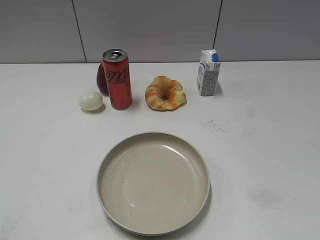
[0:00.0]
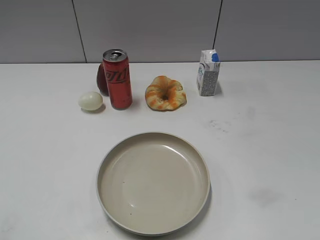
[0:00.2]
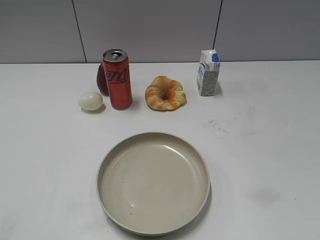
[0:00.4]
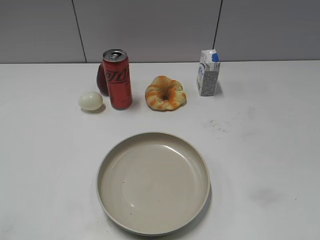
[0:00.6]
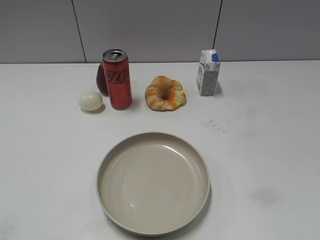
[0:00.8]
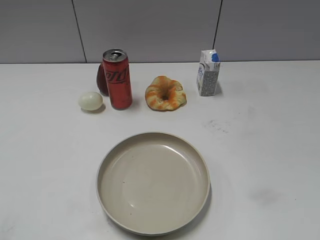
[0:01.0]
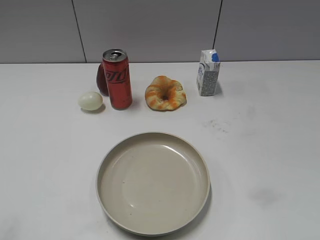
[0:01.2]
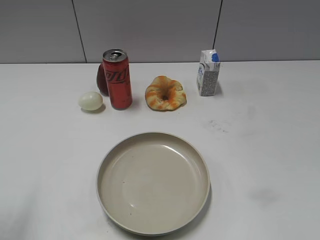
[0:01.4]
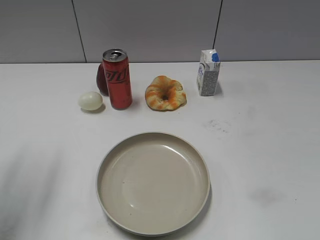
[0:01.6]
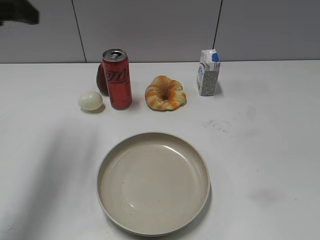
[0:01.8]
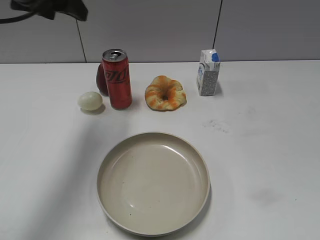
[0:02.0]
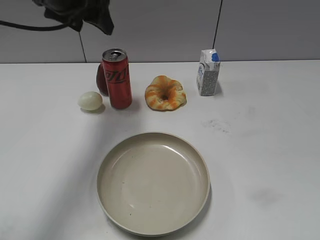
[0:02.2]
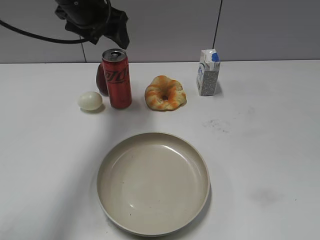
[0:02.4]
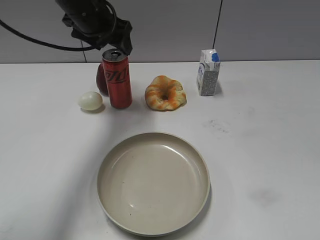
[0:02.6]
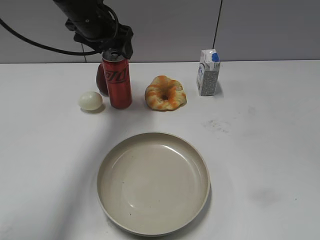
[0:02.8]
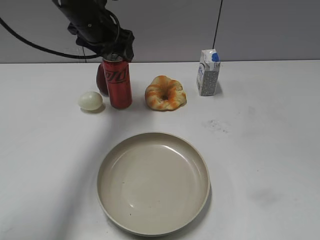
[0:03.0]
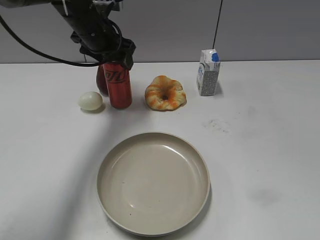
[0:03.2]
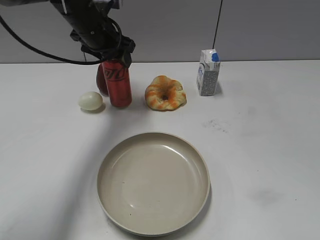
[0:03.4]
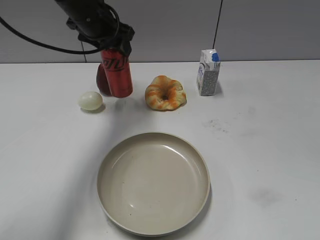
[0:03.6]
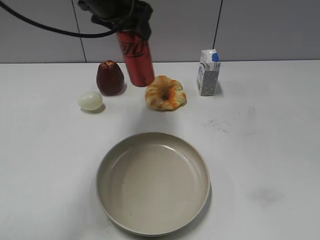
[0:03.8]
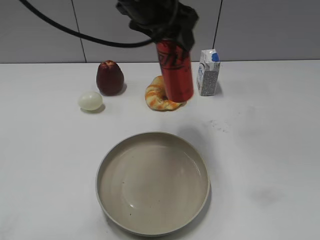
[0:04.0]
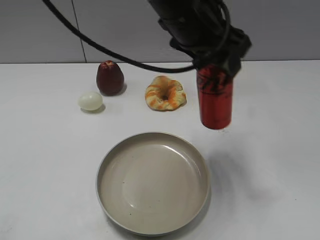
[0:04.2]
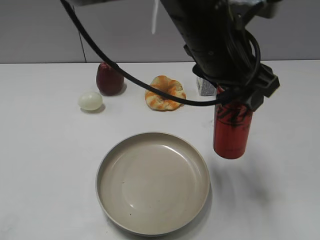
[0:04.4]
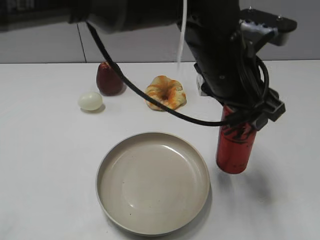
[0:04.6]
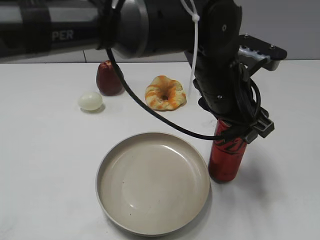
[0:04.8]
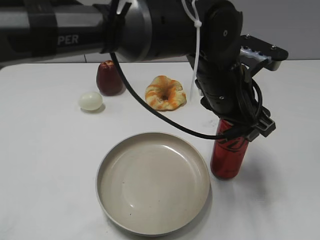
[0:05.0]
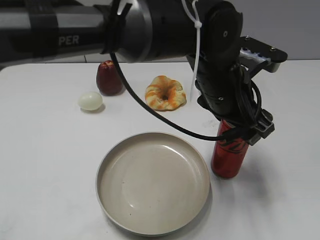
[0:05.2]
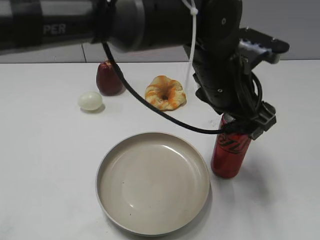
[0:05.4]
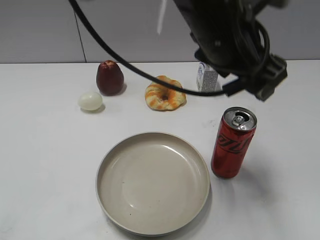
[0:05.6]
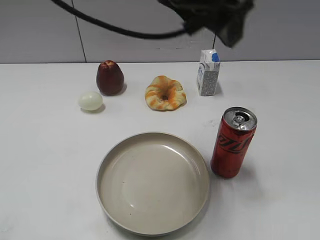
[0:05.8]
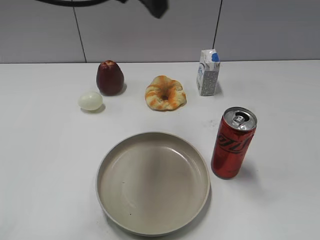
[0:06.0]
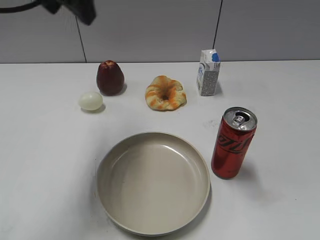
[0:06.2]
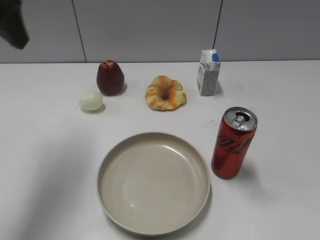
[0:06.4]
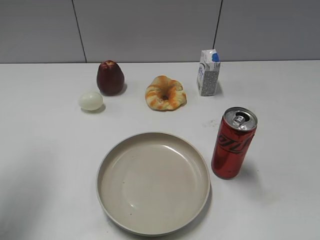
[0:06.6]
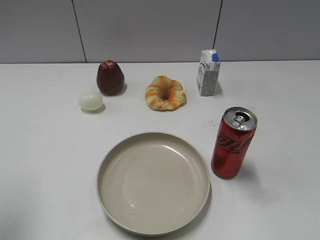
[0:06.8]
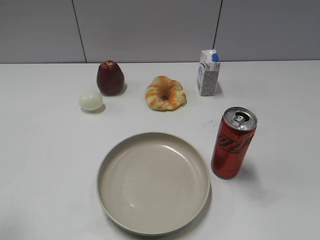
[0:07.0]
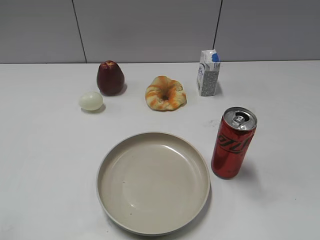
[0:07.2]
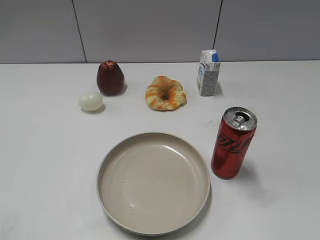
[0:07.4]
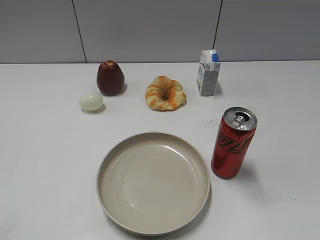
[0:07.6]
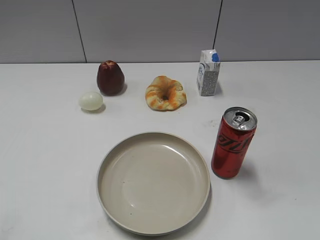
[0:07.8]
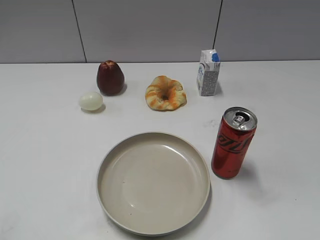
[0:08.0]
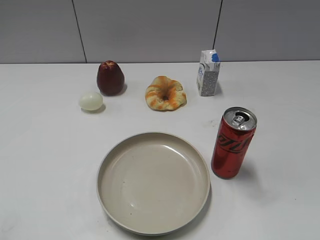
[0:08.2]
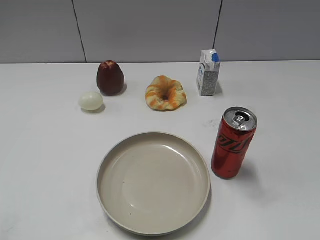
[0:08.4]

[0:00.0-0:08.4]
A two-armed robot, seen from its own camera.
Step, 0:01.2 to 0:03.4: Grasp the cola with left gripper.
Step, 0:03.6 to 0:05.4: Place the cola on the table with left gripper.
0:01.4 to 0:02.8: The left gripper travels forward and to the right by some 35 cm, and opens up.
0:02.8 to 0:04.2: The left gripper travels backward and to the right by roughly 20 cm, and closes its fingers.
0:04.2 to 0:05.6: The left gripper travels downward and back again, about 10 cm each way, and opens.
0:05.6 to 0:07.0: The left gripper goes some 35 cm to the left, and closes up.

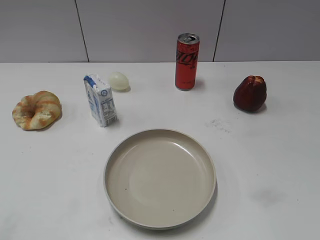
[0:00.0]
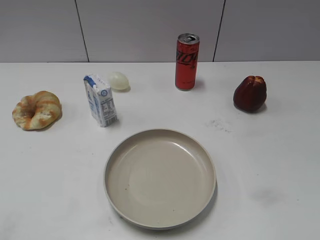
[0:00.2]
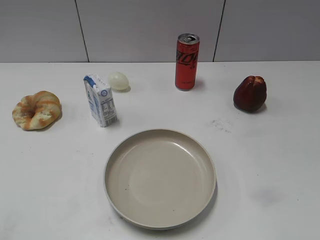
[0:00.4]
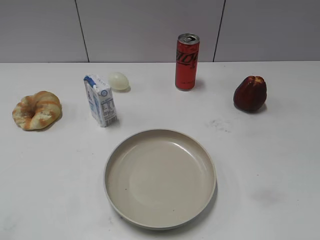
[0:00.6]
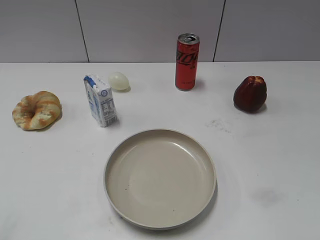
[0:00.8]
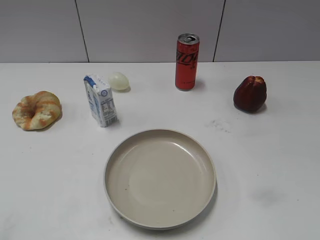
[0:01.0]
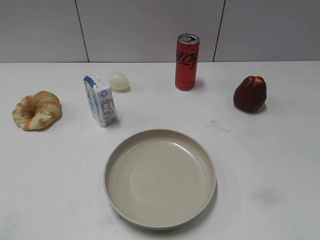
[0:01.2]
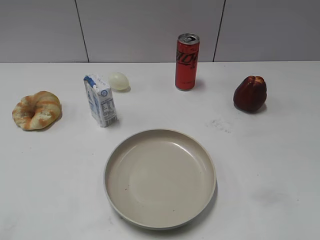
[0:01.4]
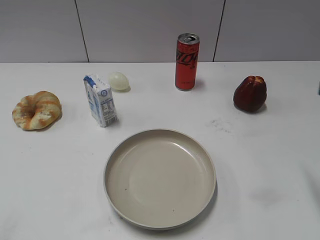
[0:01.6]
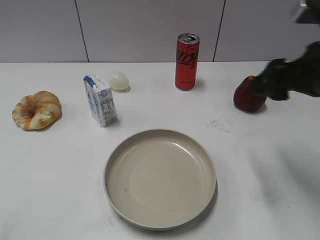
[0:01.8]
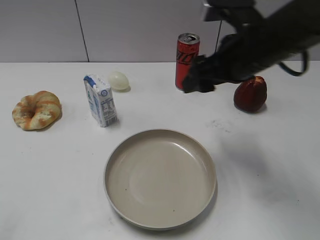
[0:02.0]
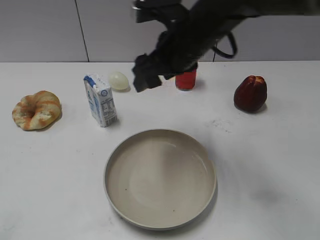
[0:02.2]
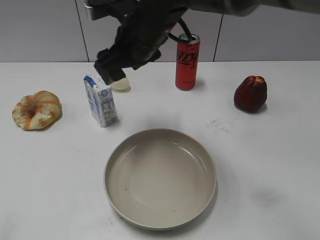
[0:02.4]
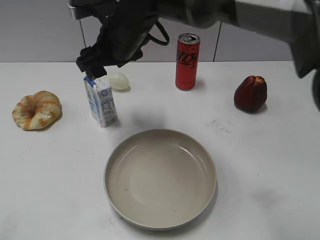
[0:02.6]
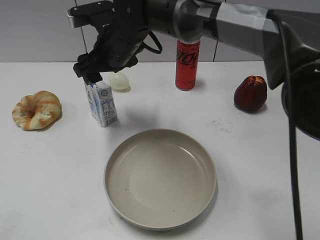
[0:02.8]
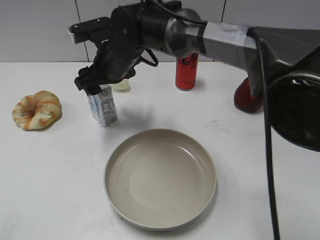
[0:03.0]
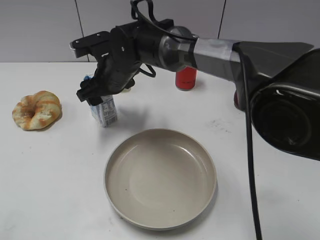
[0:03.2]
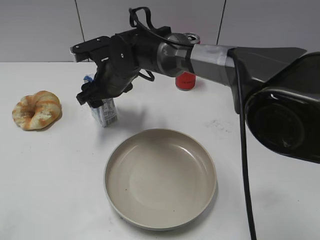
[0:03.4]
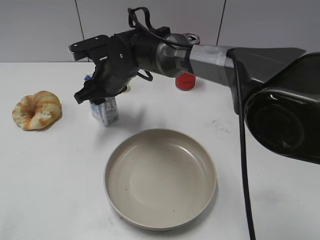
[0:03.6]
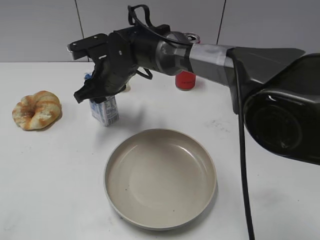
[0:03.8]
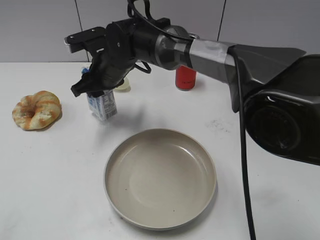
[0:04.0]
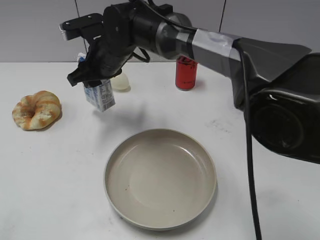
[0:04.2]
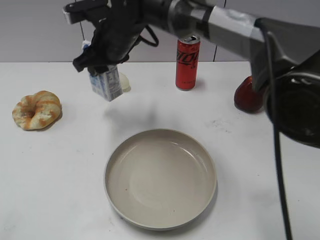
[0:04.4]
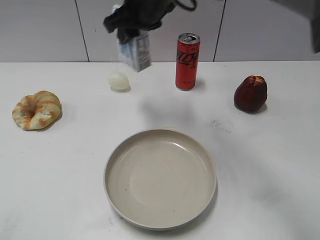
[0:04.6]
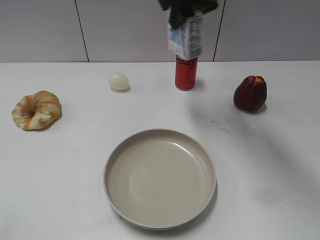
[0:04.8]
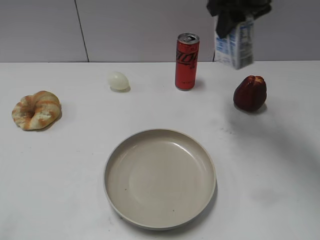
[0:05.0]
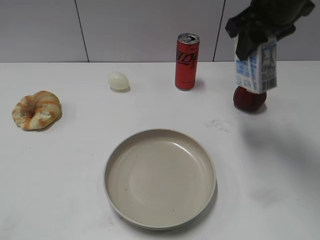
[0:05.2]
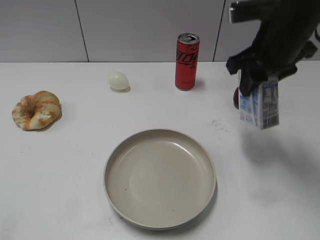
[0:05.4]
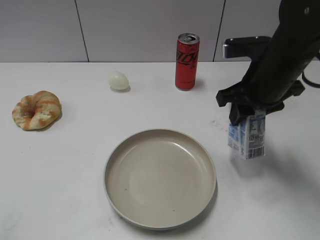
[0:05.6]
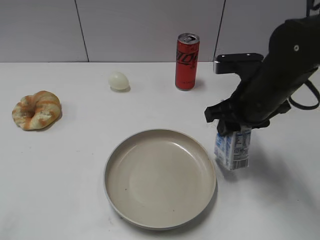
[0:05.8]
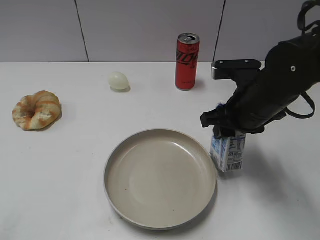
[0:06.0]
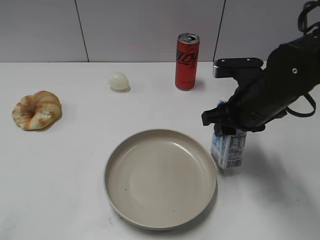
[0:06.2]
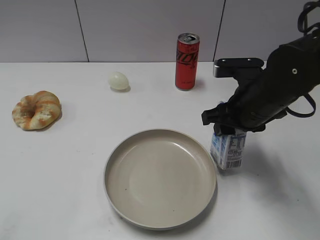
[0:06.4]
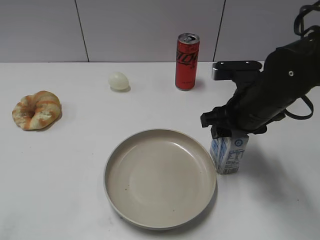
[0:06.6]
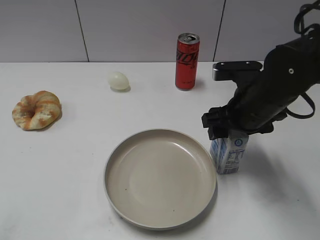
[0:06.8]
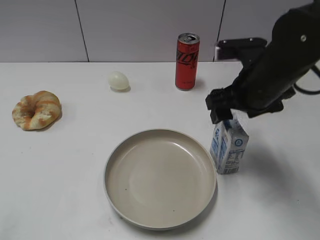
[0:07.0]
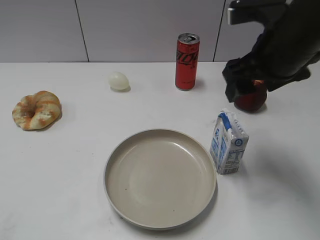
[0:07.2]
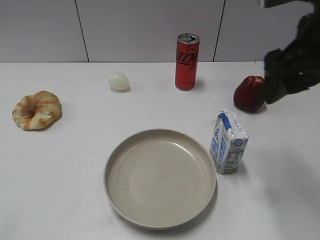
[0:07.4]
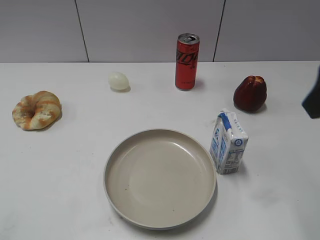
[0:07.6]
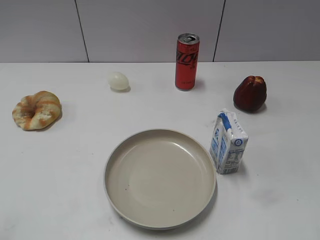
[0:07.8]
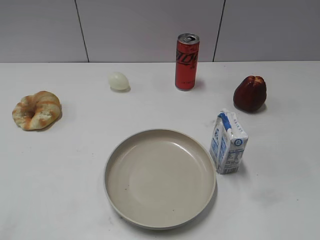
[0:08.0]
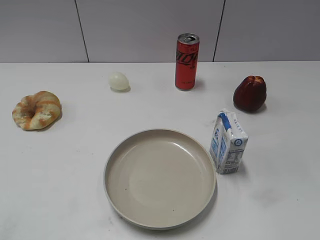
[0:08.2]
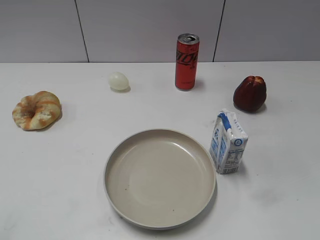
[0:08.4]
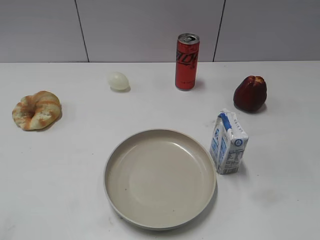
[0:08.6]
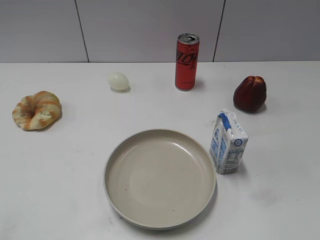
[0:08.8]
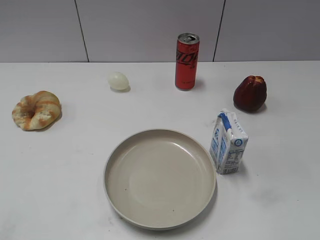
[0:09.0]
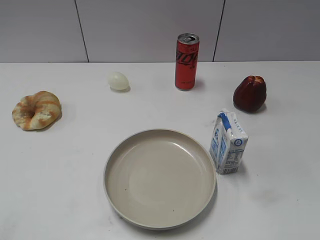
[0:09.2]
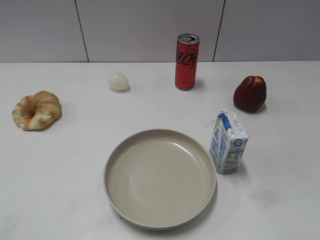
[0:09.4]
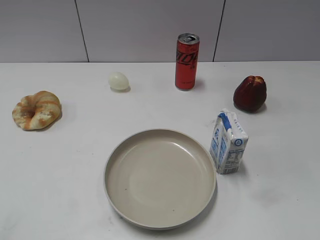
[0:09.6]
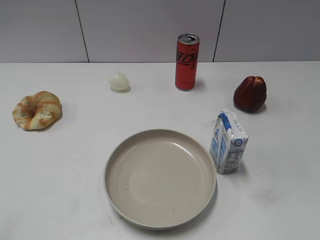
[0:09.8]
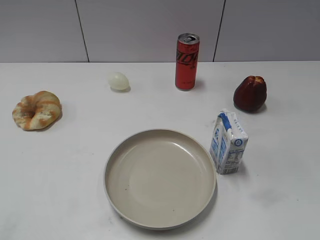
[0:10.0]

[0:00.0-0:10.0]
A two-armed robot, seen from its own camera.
Step, 0:00.8 to 0:03.6: Grasp the milk with right gripper.
Step, 0:03.8 to 0:06.8: Place the milk on the table with right gripper.
0:01.4 to 0:02.8: The right gripper moves to the left and forward, approximately 50 cm.
0:02.8 to 0:04.2: The right gripper closes up.
0:04.2 to 0:05.8: The right gripper goes about 25 cm to the right and backward.
0:05.8 to 0:07.2: The right gripper moves upward, approximately 10 cm, and opens.
0:07.2 to 0:08.6: The right gripper heads backward and to the right, covering roughly 30 cm.

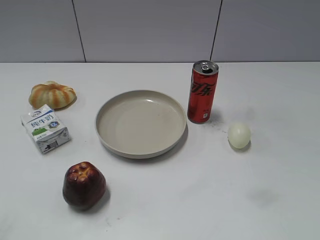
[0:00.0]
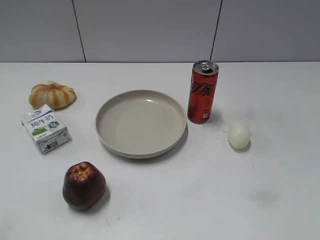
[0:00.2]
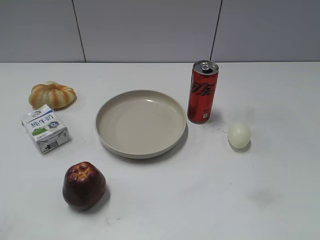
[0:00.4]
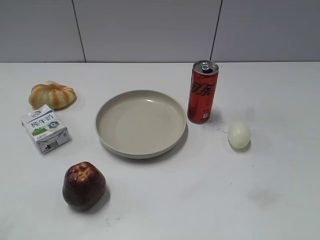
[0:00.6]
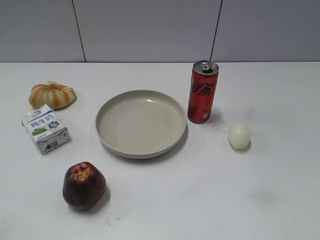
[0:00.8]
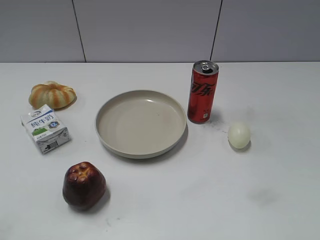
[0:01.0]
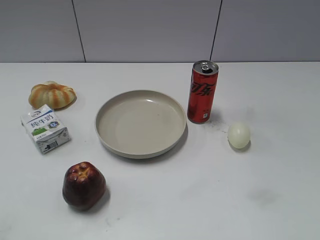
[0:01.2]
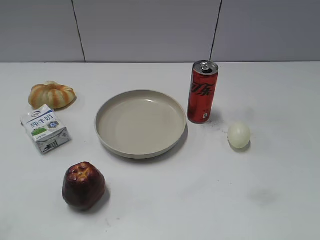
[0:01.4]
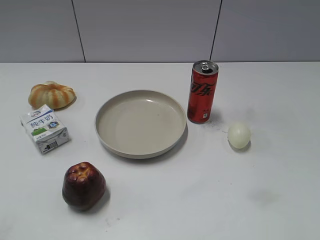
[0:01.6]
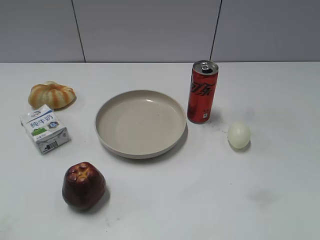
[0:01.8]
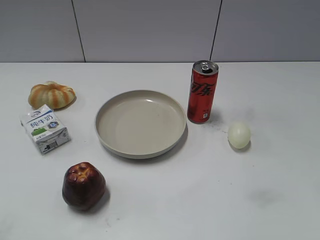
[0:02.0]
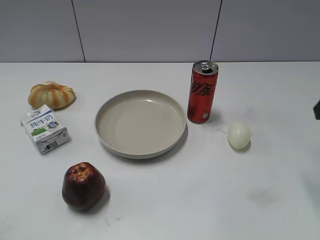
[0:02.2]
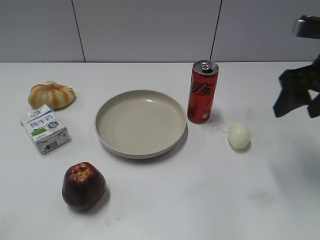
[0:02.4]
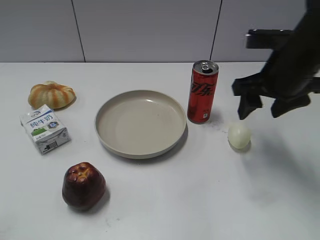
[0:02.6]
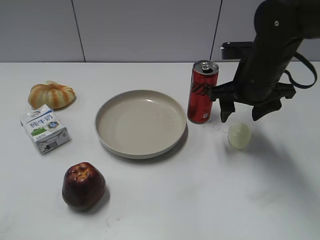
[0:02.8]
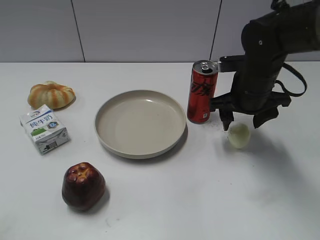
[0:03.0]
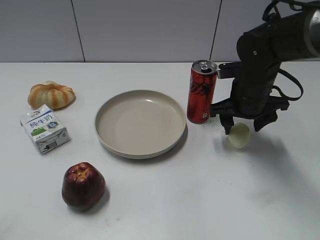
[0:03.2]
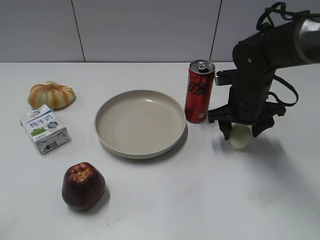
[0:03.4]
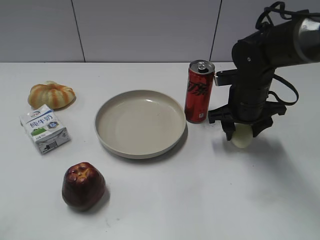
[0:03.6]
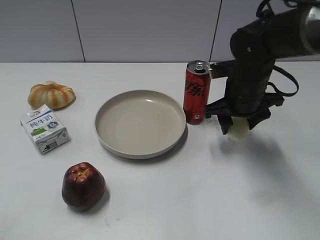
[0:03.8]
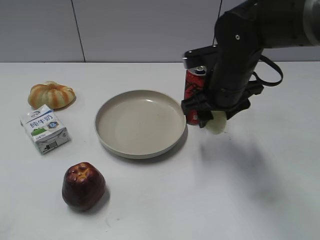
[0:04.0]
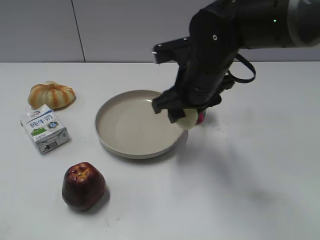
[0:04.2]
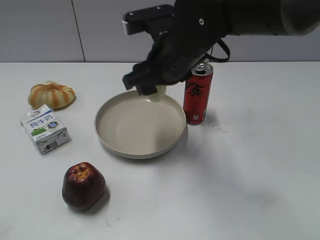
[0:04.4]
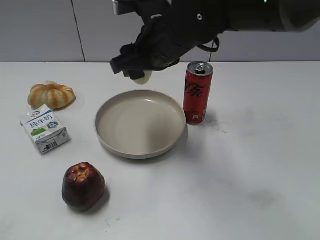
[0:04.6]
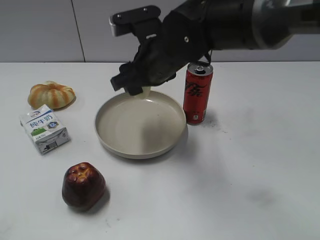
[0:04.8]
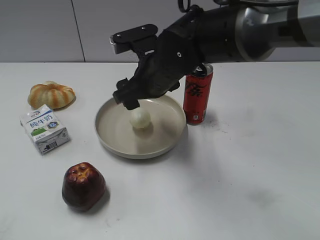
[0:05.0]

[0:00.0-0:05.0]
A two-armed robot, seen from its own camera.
Step, 0:01.0 to 0:03.4: Grasp the egg with right gripper.
0:01.6 to 0:03.4: The right gripper moves forward, downward and to the left, about 35 cm.
0:03.4 to 0:05.0: The right gripper goes roughly 15 cm to the left and upward, and opens its fingers.
